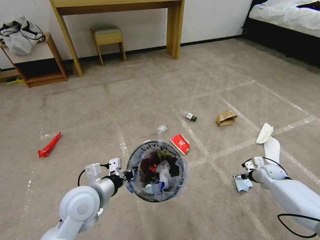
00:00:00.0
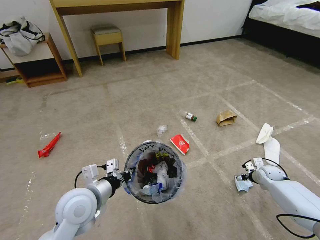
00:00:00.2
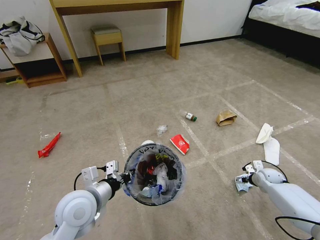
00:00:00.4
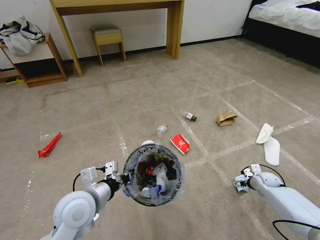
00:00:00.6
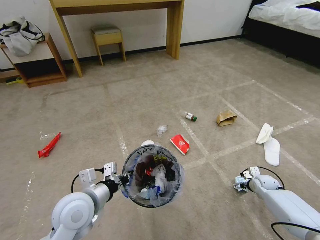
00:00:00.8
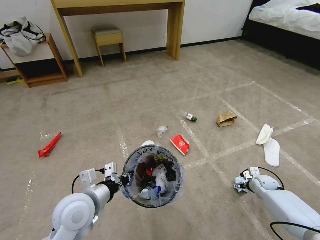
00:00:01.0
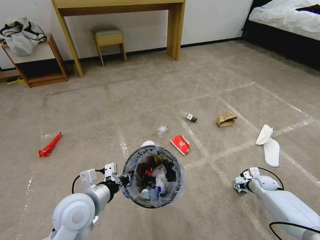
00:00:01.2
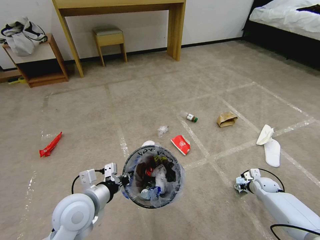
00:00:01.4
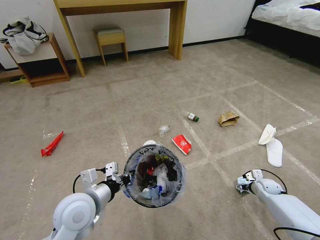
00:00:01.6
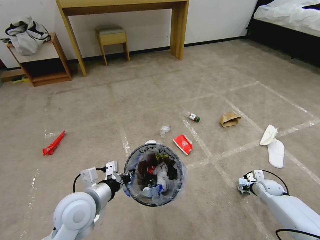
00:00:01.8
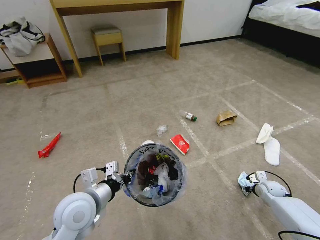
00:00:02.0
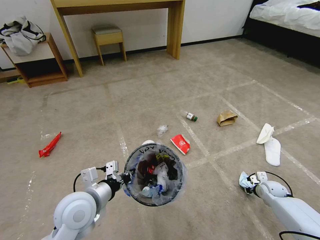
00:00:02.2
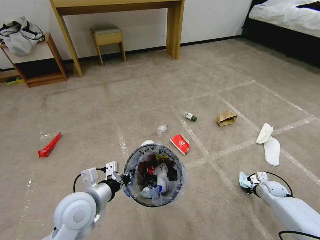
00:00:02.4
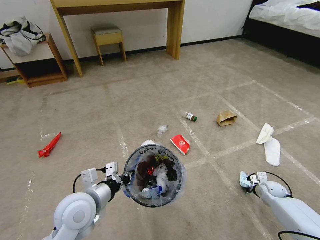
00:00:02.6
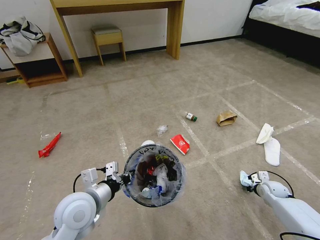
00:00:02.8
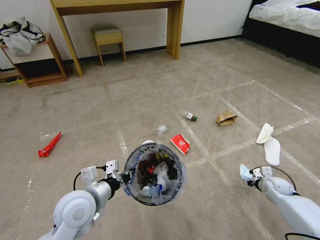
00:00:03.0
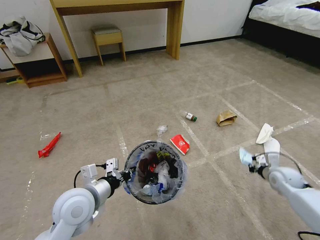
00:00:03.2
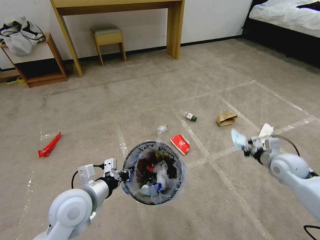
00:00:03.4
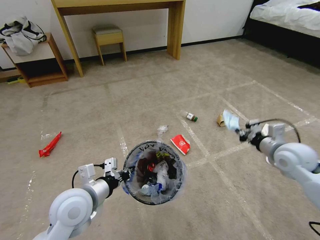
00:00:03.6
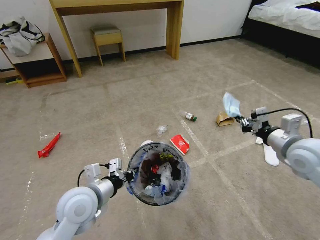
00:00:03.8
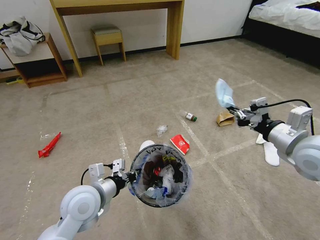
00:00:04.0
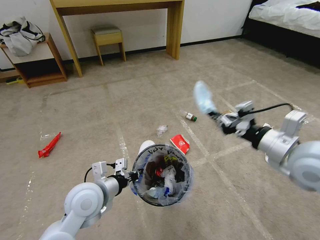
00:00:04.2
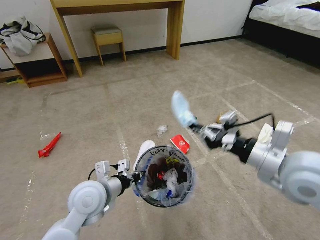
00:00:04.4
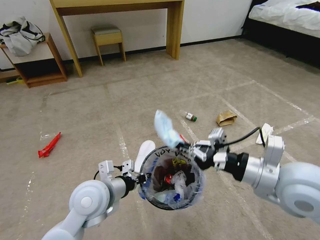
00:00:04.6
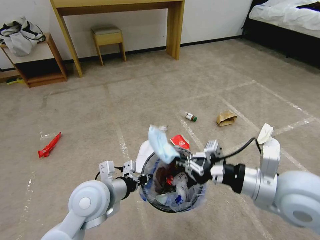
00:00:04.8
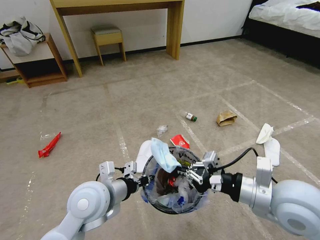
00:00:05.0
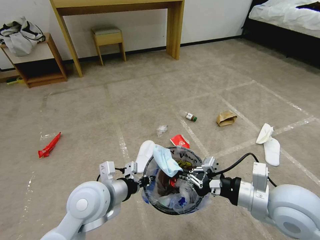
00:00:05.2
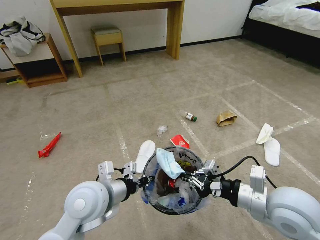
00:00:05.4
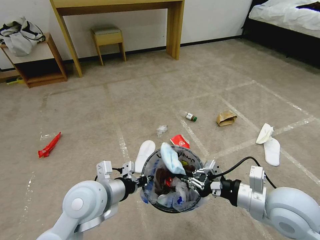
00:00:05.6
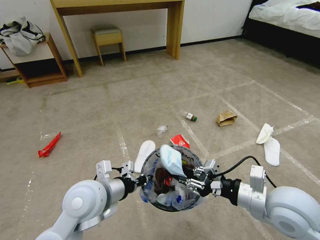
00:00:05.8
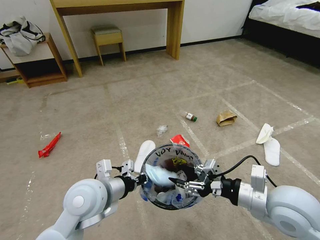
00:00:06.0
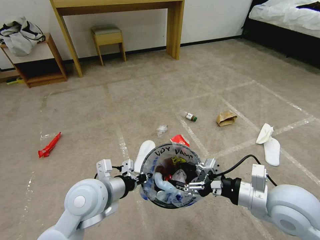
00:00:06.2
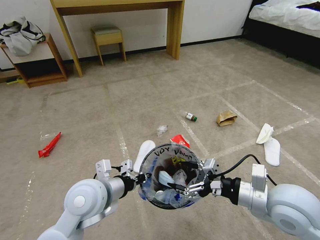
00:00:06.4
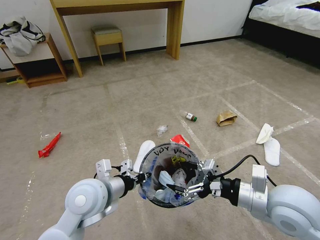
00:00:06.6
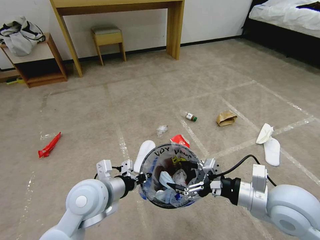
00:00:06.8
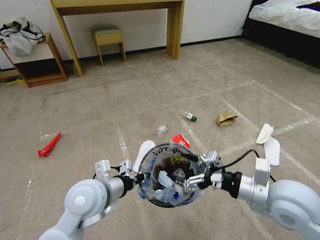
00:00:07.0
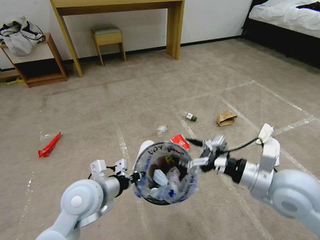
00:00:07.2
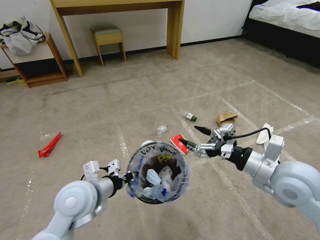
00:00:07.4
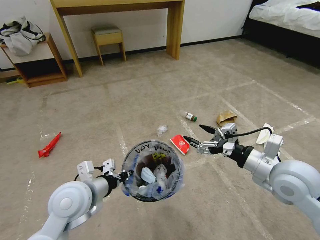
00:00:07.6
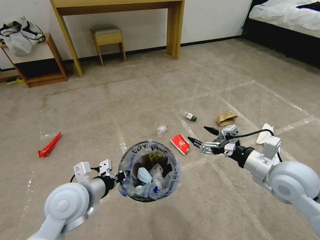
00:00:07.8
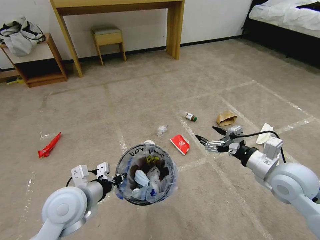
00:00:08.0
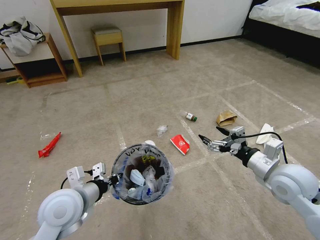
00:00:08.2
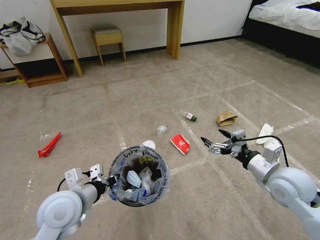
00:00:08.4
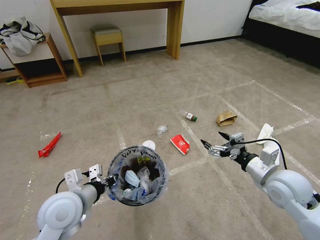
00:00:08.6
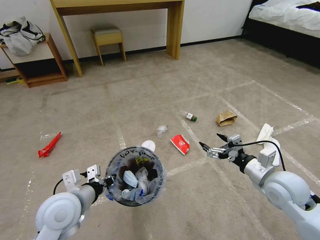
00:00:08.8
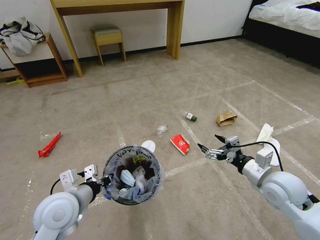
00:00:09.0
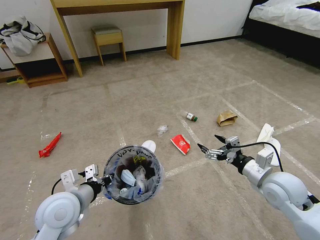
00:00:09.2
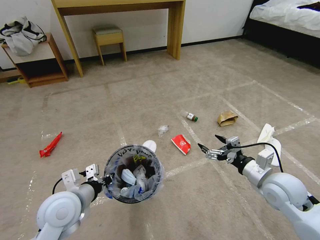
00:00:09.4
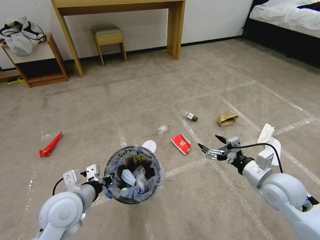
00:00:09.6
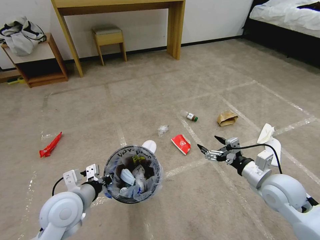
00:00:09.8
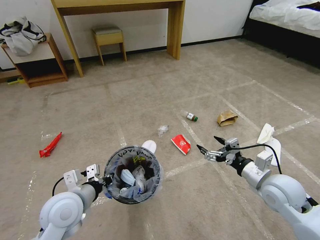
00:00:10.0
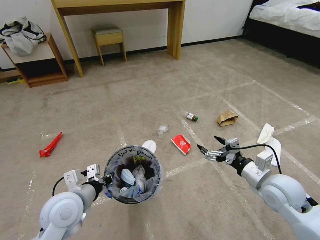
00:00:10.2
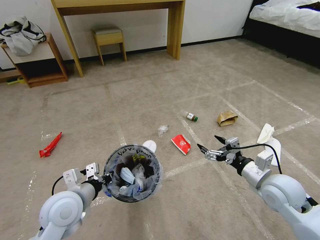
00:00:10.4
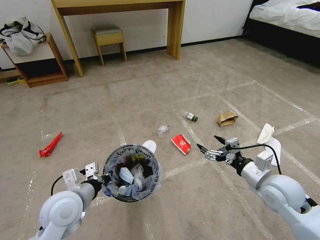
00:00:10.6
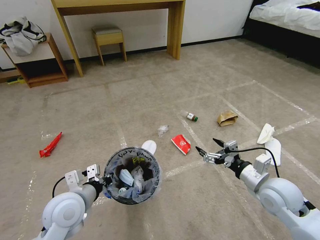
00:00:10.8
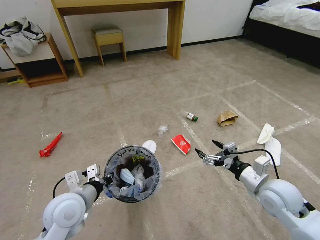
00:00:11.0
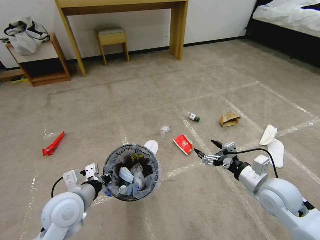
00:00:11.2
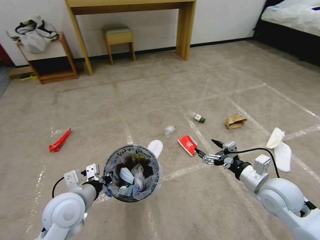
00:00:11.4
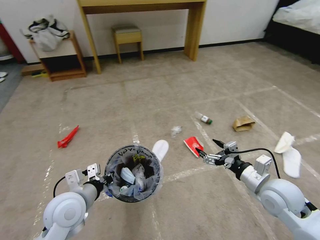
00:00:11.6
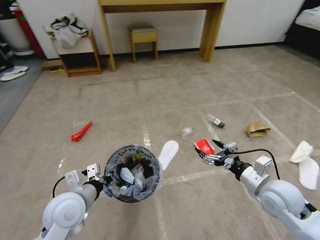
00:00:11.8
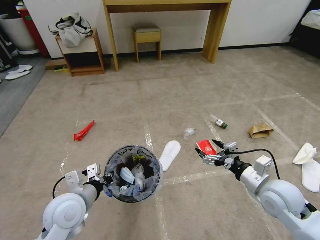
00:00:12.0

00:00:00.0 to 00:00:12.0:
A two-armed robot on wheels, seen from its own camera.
Task of the whole recording: Pick up the trash bin and place the garbage on the floor into it.
00:00:00.0 to 00:00:01.6: The right gripper is displaced downward by about 5 cm.
00:00:01.6 to 00:00:03.0: The right gripper shifts by roughly 5 cm, and closes.
00:00:03.0 to 00:00:04.4: The right gripper goes approximately 40 cm upward and to the left.
00:00:04.4 to 00:00:06.0: The right gripper is displaced downward by about 10 cm, and opens up.
00:00:06.0 to 00:00:07.6: The right gripper is displaced forward by about 5 cm, and opens its fingers.
00:00:07.6 to 00:00:09.0: The right gripper shifts roughly 5 cm downward.
00:00:09.0 to 00:00:10.4: Neither gripper changes place.

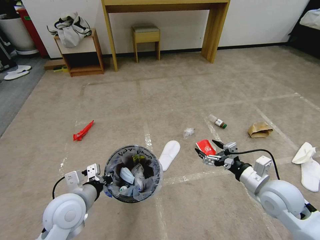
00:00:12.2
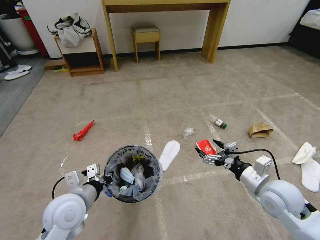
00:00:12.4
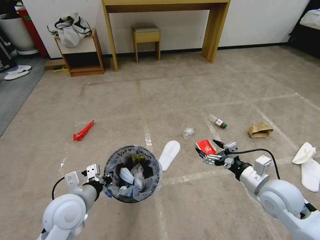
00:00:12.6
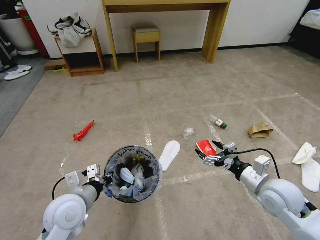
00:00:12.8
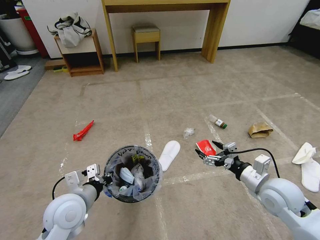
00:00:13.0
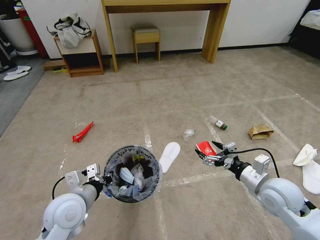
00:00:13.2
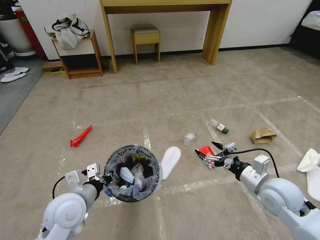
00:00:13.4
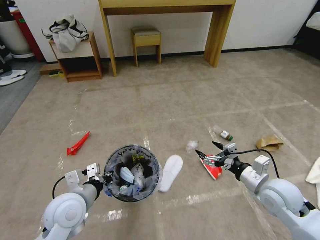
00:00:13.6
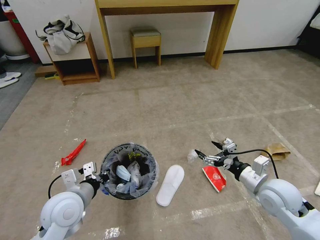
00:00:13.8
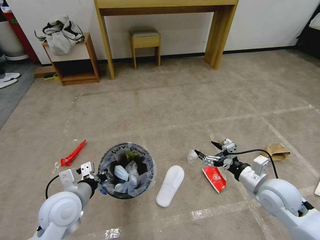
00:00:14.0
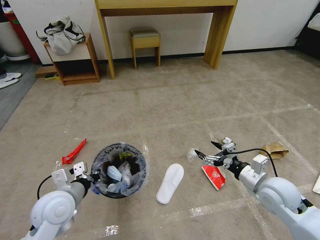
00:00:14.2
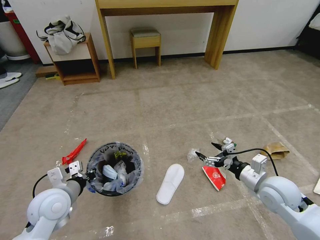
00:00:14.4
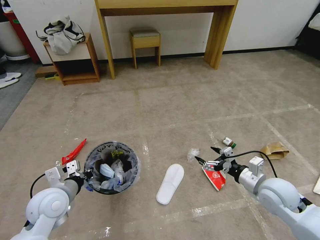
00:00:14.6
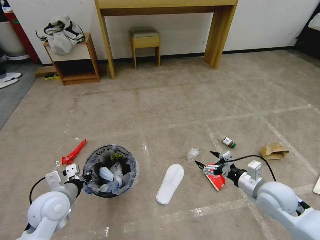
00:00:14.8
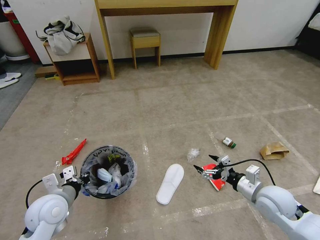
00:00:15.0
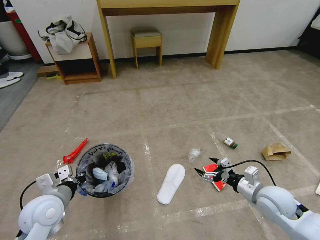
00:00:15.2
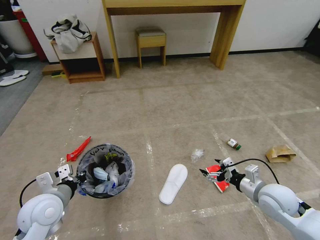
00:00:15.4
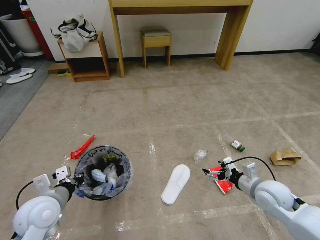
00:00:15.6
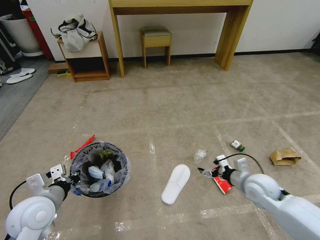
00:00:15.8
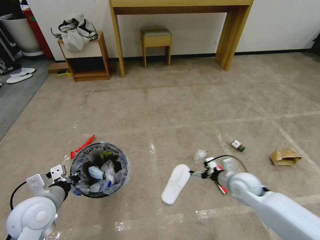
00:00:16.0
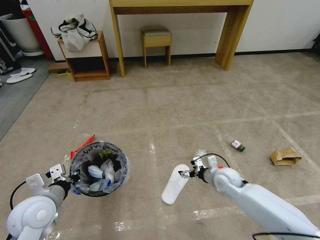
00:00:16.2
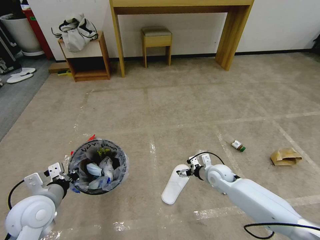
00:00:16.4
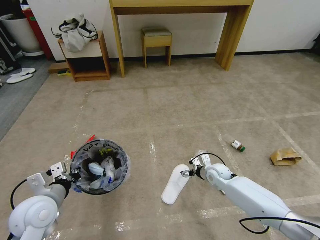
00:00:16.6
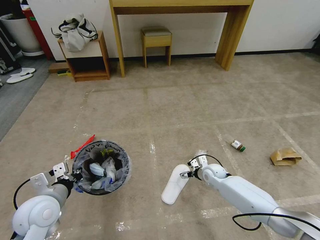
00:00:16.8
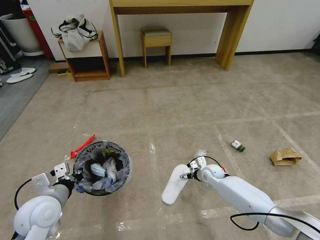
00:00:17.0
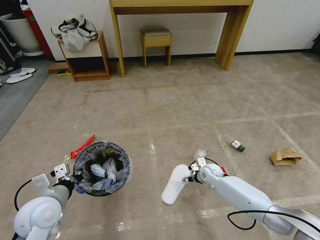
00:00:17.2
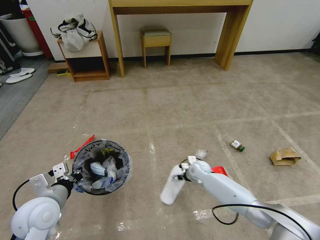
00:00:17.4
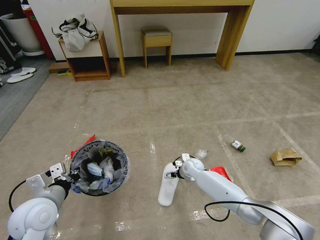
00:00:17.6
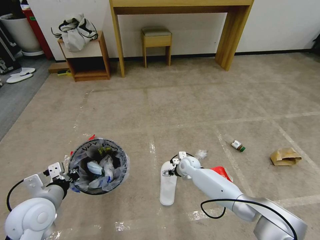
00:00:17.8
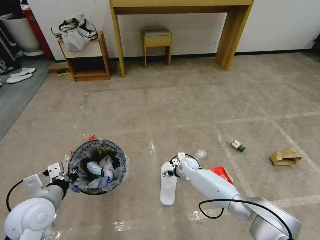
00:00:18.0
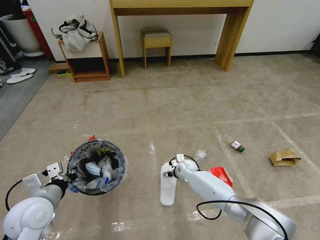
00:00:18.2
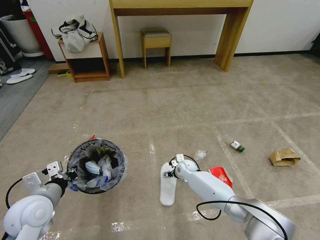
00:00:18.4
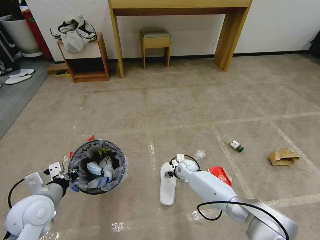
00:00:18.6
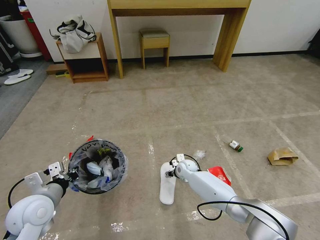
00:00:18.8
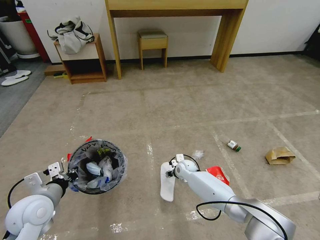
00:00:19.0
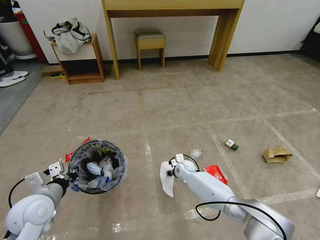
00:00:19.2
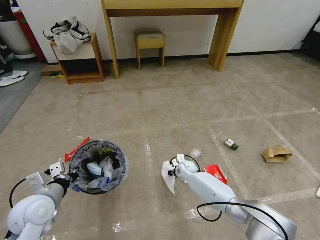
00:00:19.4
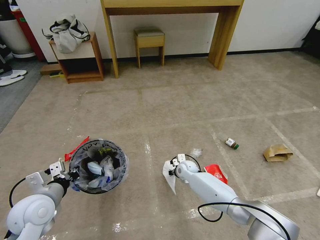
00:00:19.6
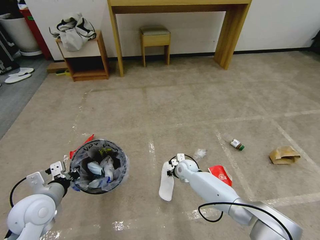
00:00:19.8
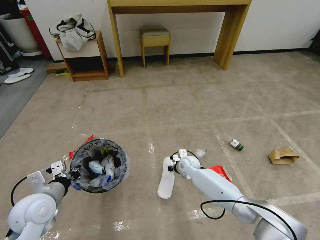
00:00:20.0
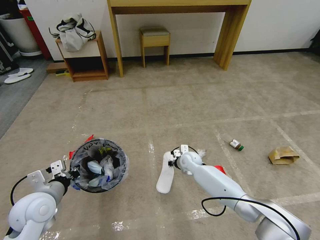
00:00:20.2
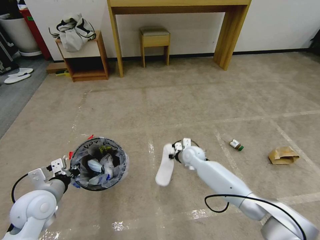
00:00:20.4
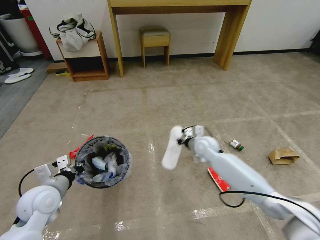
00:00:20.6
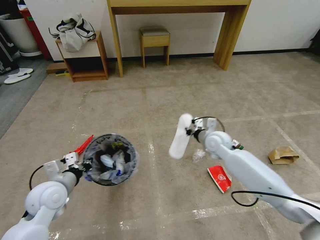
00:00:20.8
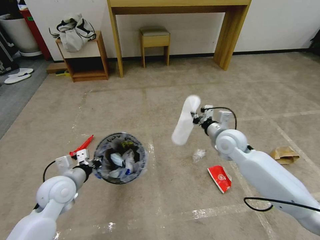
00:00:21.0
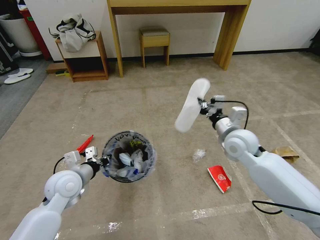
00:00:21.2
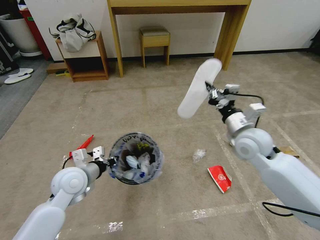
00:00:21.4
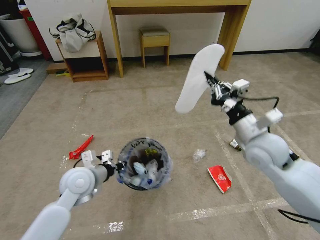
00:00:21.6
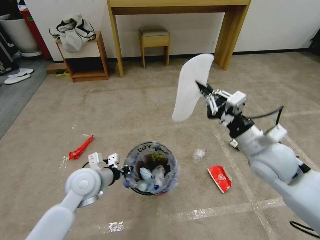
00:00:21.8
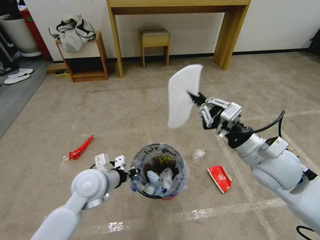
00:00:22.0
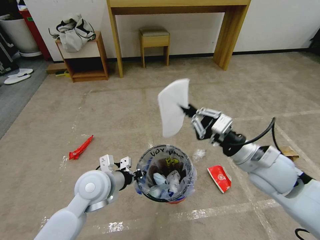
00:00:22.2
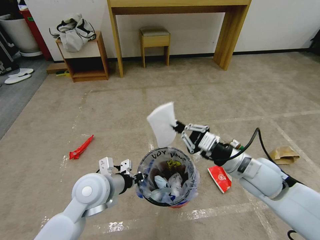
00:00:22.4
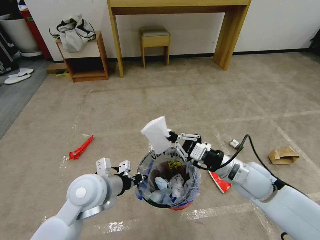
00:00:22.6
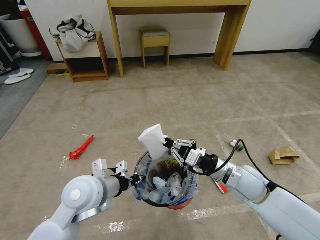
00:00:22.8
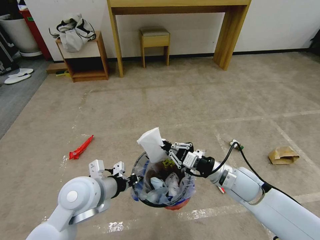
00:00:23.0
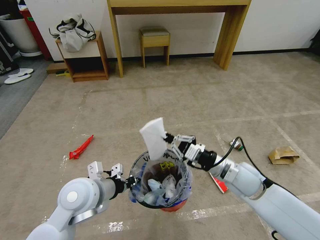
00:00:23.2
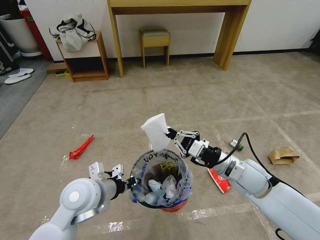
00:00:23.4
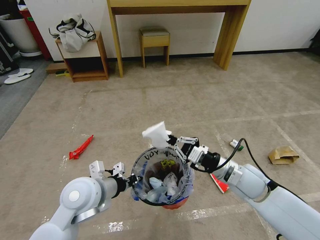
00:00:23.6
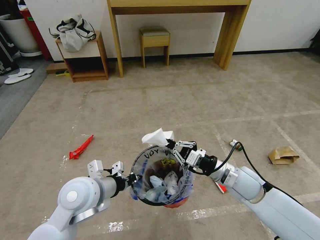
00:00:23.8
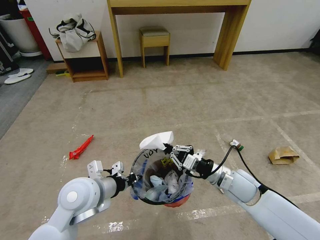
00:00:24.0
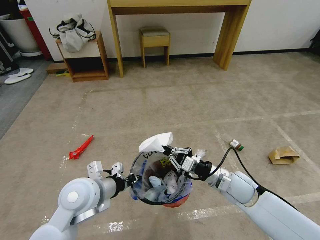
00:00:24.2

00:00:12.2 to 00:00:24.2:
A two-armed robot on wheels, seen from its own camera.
Task of the whole recording: Pick up the trash bin and place the garbage on the floor into it.
00:00:13.8 to 00:00:15.2: The left gripper shifts about 5 cm to the left.
00:00:15.2 to 00:00:16.6: The right gripper shifts about 20 cm forward, downward and to the left.
00:00:16.6 to 00:00:18.2: The right gripper shifts some 15 cm to the left, forward and downward.
00:00:18.2 to 00:00:19.8: The right gripper closes up.
00:00:19.8 to 00:00:21.2: The right gripper is displaced upward and to the right by roughly 30 cm; the left gripper is displaced forward and to the right by some 10 cm.
00:00:21.2 to 00:00:22.6: The left gripper shifts roughly 10 cm to the right. The right gripper travels backward by roughly 10 cm.
00:00:22.6 to 00:00:24.2: The right gripper moves downward, approximately 5 cm.
